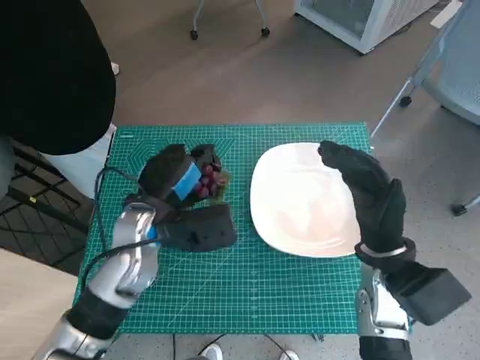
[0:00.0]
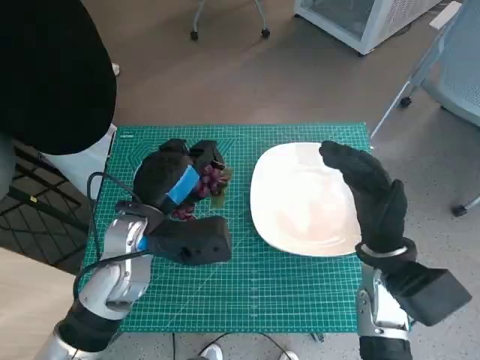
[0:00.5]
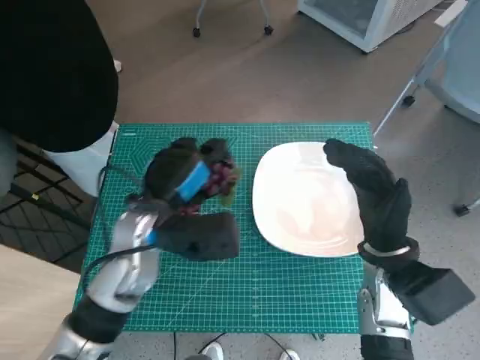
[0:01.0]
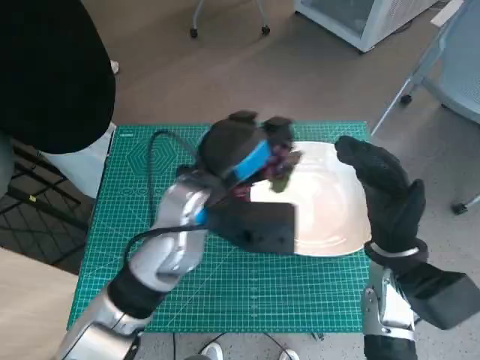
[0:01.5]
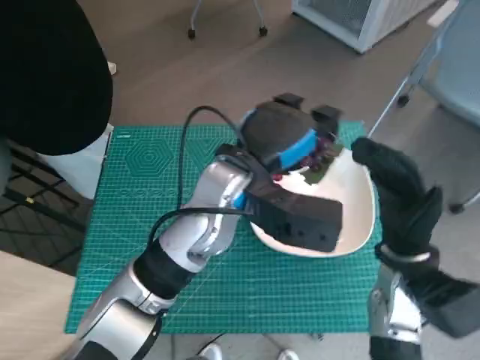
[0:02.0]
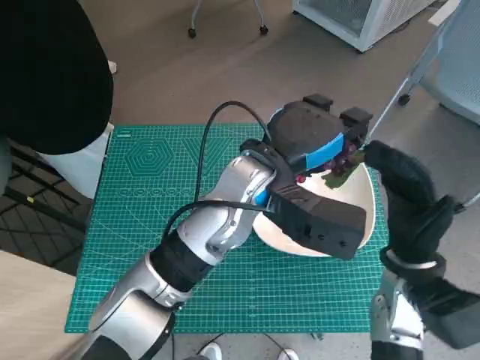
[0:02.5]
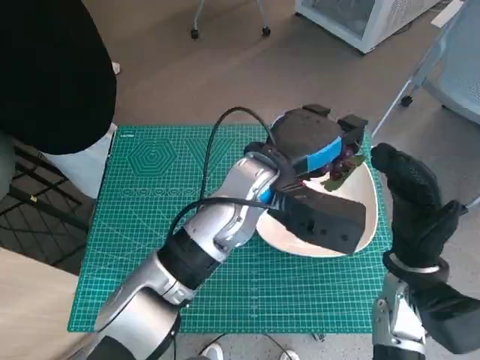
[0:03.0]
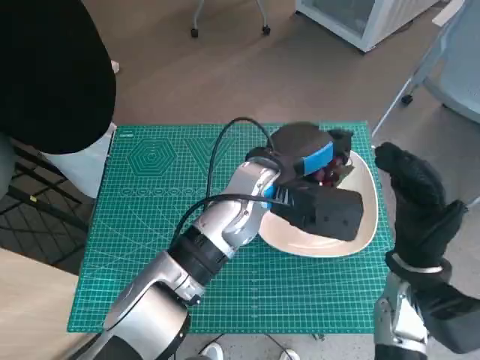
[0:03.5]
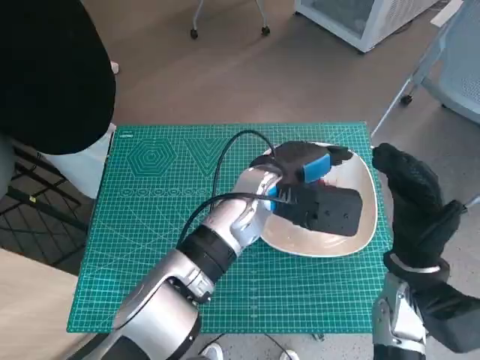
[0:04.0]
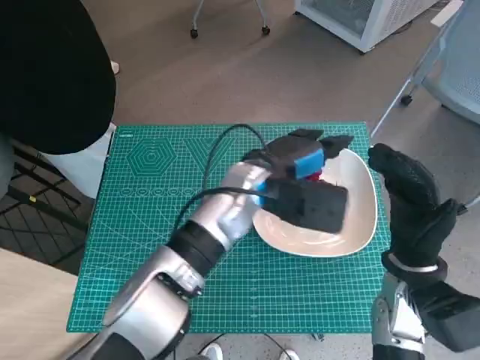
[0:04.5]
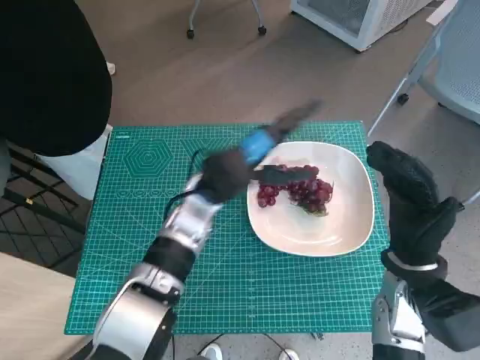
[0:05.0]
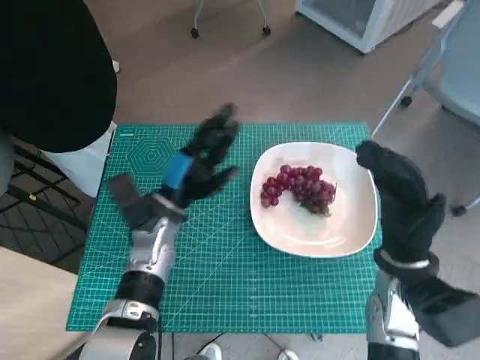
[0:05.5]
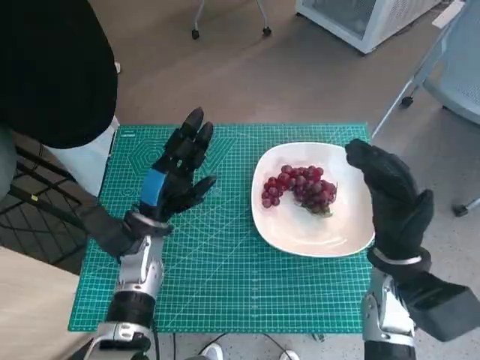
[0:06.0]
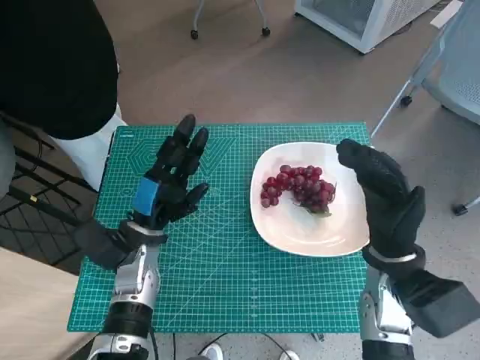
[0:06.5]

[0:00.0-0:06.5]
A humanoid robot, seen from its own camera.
Task of the whole recording: Pick up the grapes and put them on the plate.
Step, 0:00.0 to 0:04.0: Place the grapes in the plate with left hand.
0:00.0 to 0:02.0: The left hand goes roughly 15 cm to the right and upward.
0:02.0 to 0:04.5: The left hand moves roughly 5 cm.
0:04.5 to 0:06.5: The left hand travels to the left and downward by some 20 cm.

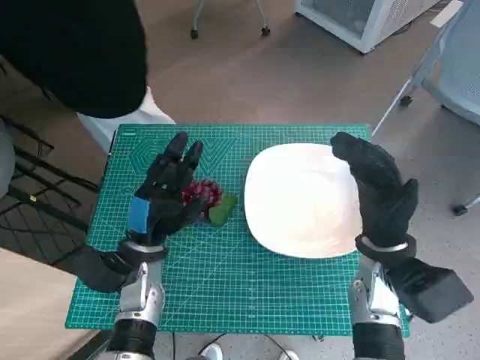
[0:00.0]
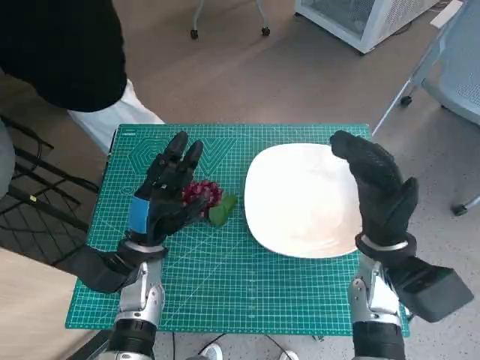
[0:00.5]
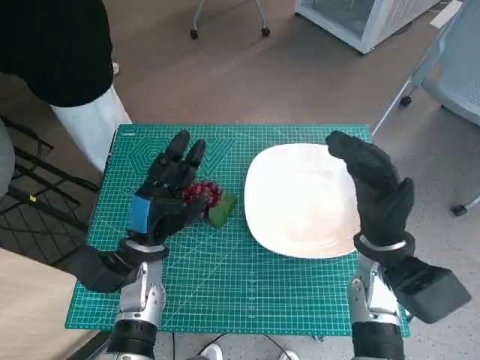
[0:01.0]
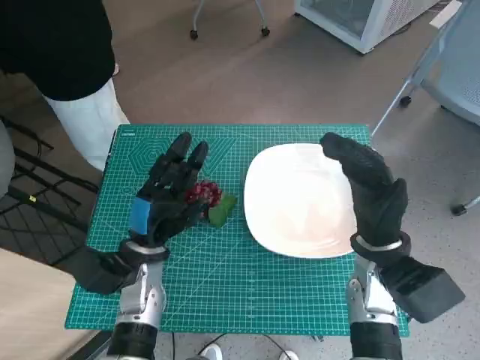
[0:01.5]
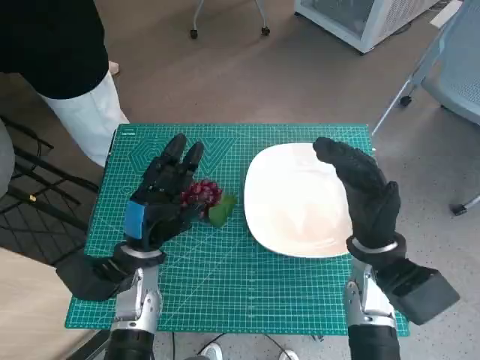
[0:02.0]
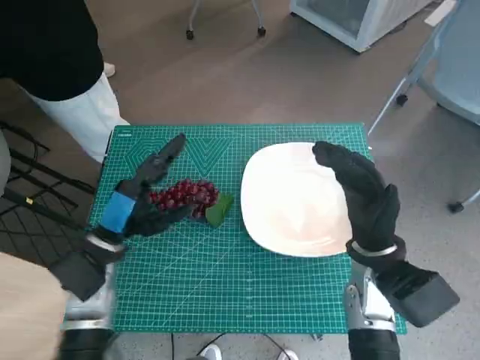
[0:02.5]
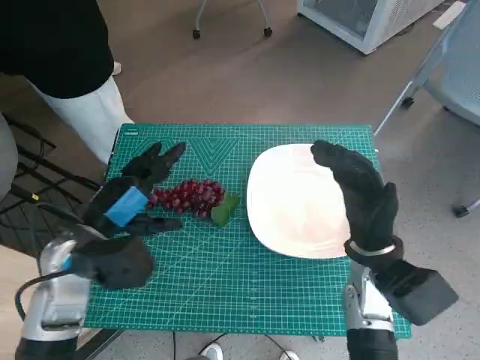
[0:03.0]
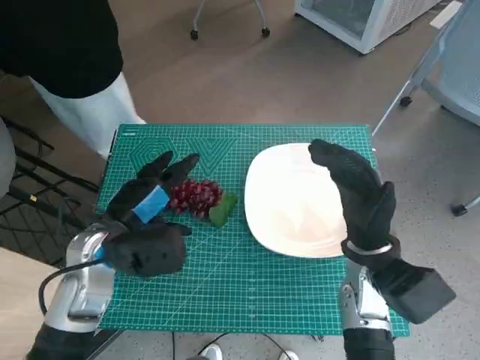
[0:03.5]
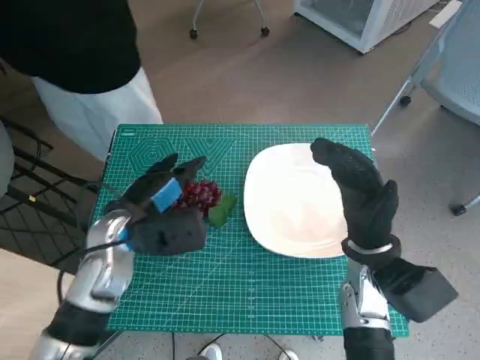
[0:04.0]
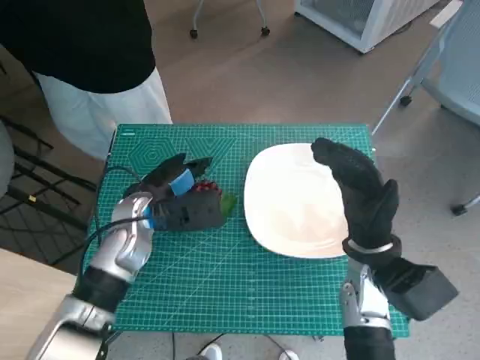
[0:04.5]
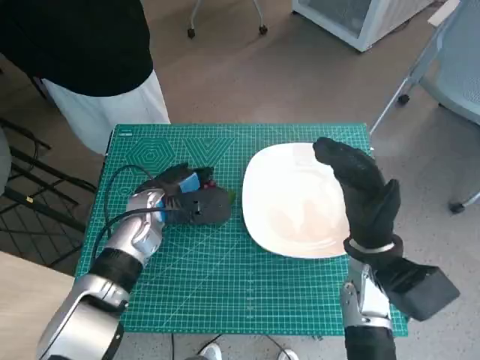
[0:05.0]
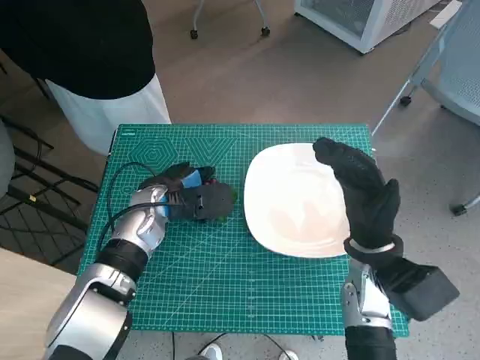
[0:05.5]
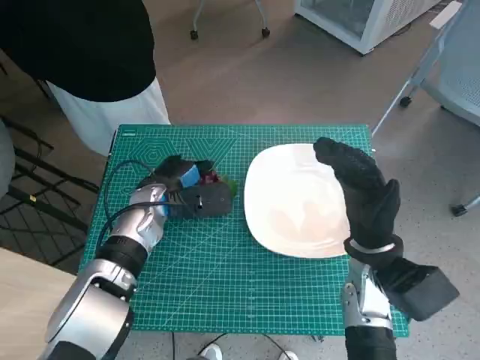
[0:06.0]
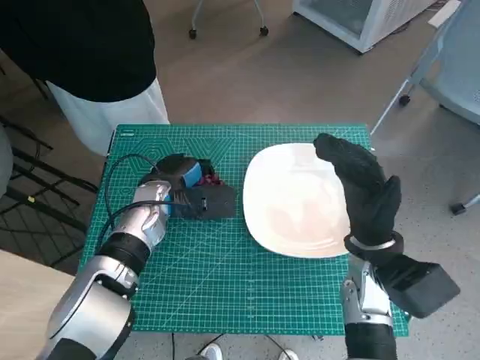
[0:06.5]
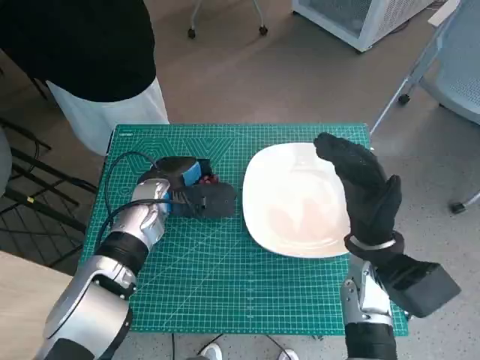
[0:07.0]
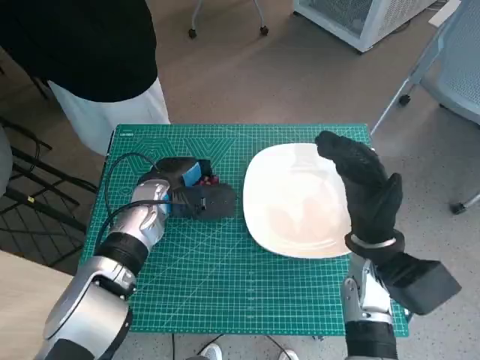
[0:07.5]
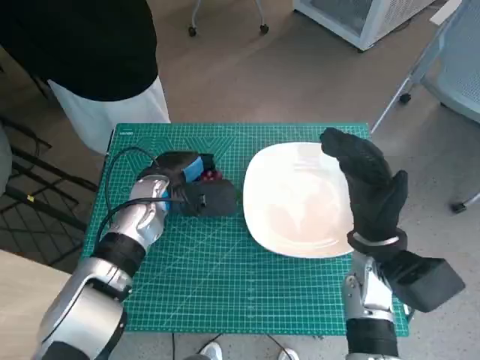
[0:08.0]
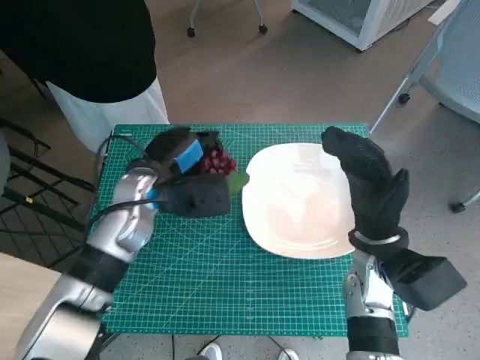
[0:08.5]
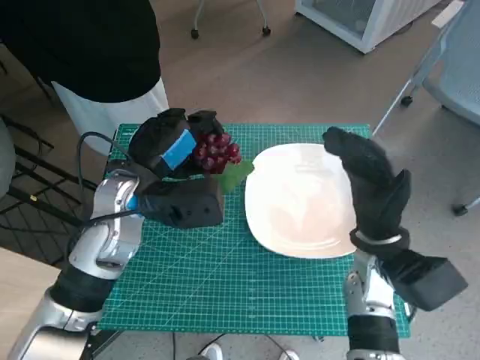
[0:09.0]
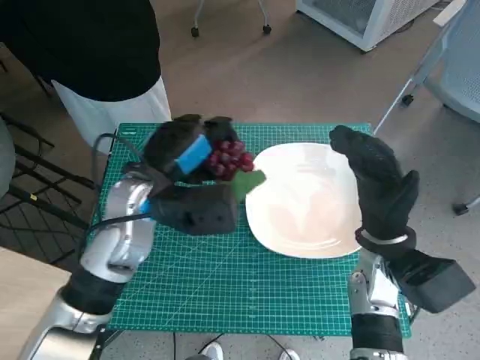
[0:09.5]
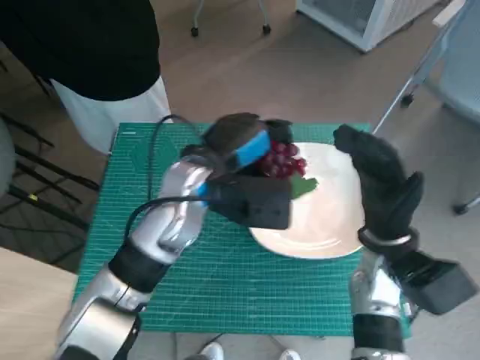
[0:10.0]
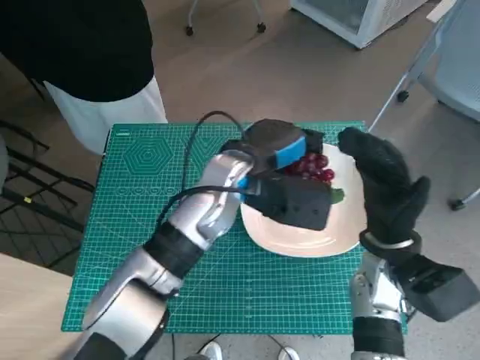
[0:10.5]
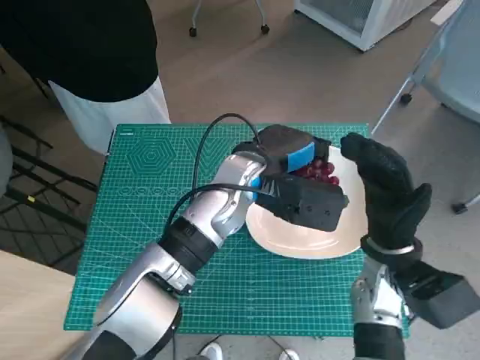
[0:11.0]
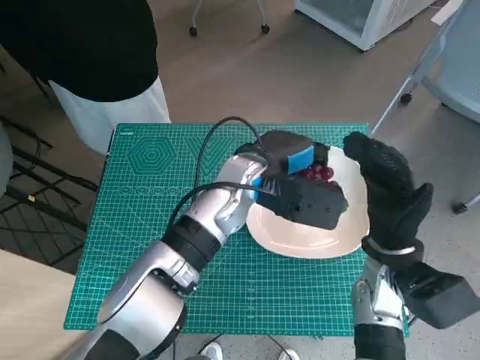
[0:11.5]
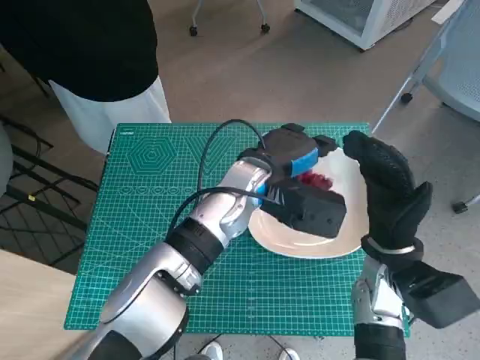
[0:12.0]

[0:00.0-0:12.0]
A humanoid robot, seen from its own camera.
Task of the whole recording: Pick up the grapes and put them on the plate.
Step, 0:00.0 to 0:05.0: Grasp the grapes with left hand.
0:02.0 to 0:04.0: The left hand goes some 5 cm upward.
0:04.0 to 0:06.0: The left hand moves forward, some 5 cm.
0:06.0 to 0:08.0: The hands move only a little.
0:08.0 to 0:10.0: The left hand shifts approximately 10 cm upward and to the right.
0:10.0 to 0:12.0: The left hand goes approximately 5 cm to the right.

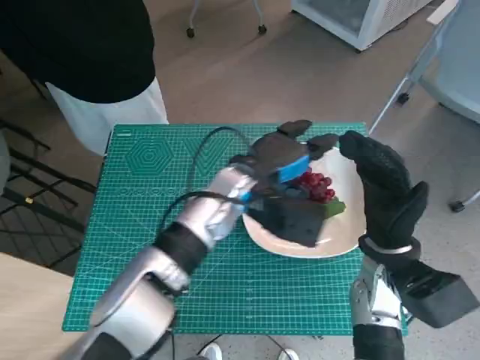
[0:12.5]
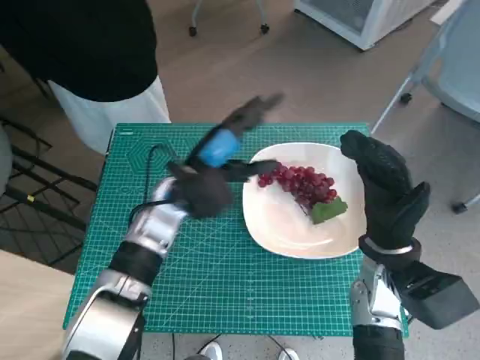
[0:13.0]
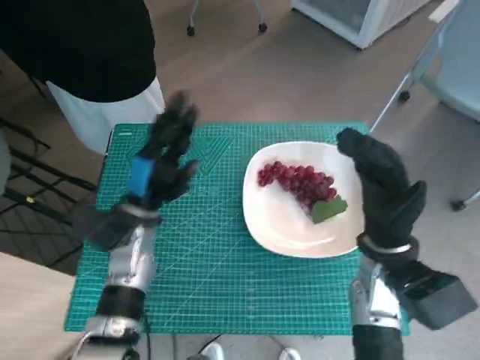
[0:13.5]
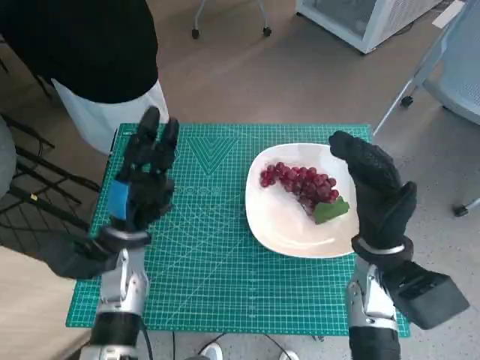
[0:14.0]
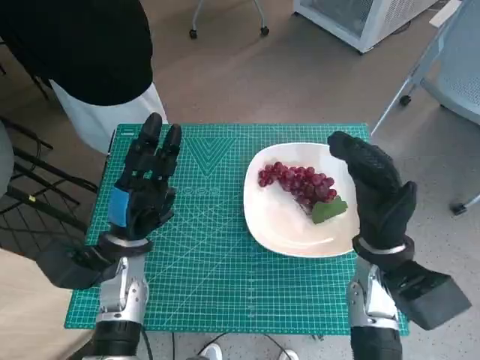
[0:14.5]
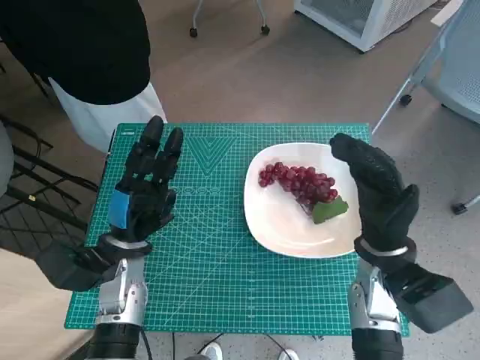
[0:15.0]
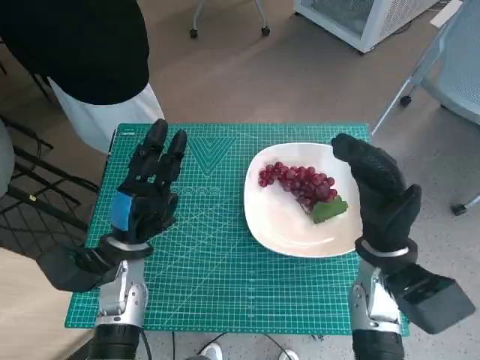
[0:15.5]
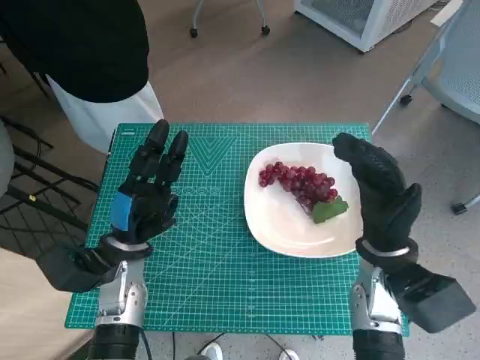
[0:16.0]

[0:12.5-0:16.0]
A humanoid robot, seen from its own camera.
Task of the whole recording: Pick up the grapes and put them on the plate.
0:12.5 to 0:14.5: The left hand heads to the left, backward and downward, covering approximately 20 cm.
0:14.5 to 0:16.0: Both hands stay about where they are.

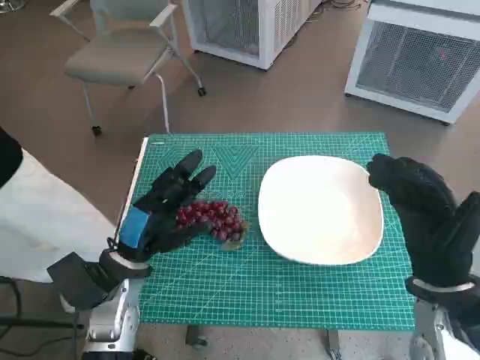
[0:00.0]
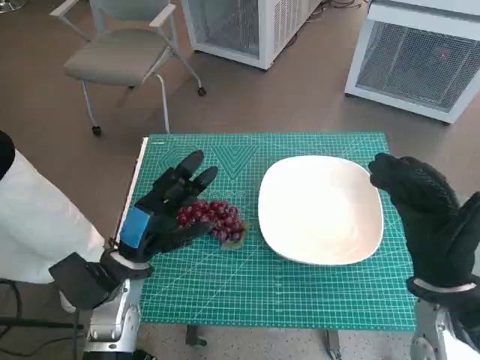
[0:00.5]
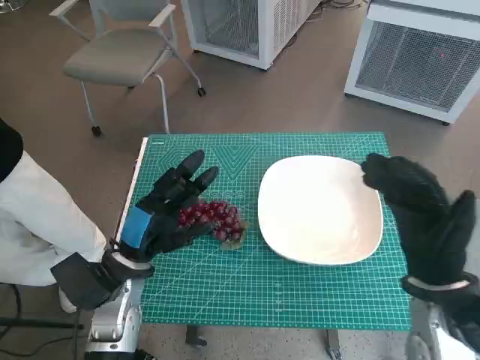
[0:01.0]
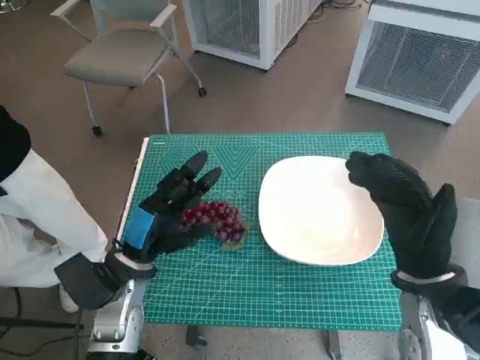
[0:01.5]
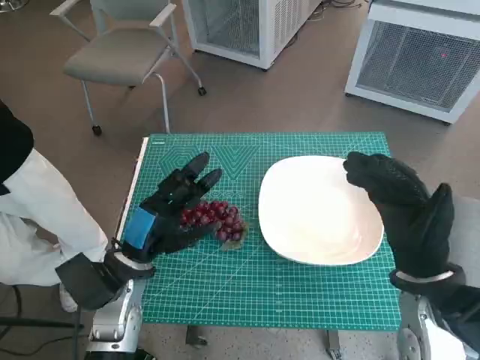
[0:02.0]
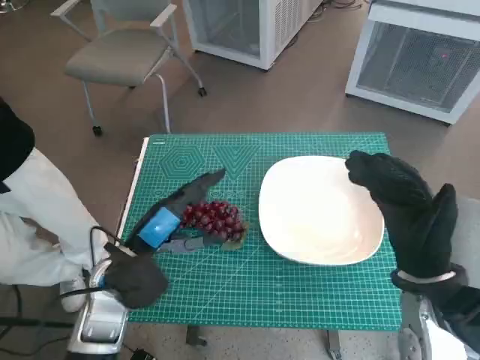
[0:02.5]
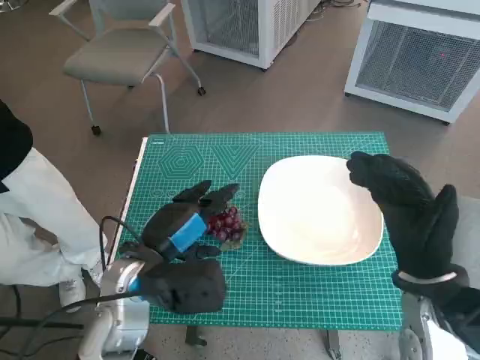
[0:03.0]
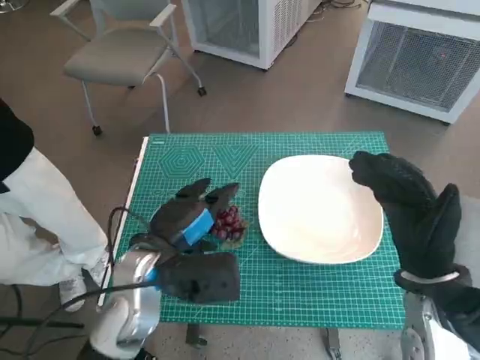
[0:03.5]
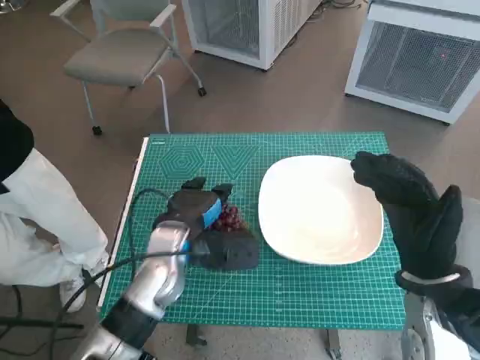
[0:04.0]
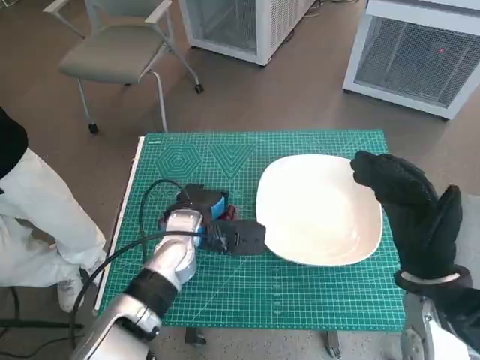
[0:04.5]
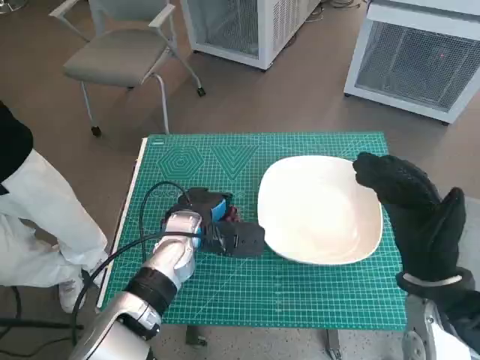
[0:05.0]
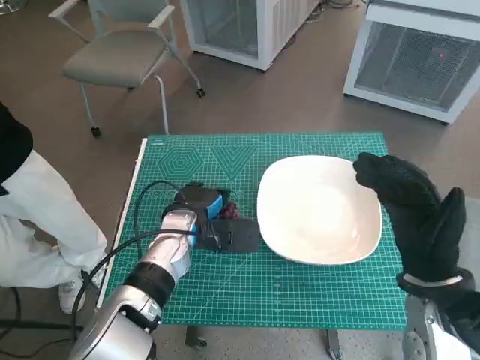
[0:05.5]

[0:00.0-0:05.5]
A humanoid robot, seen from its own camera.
Task of the whole recording: Pick up the grapes and put them on the plate.
0:02.0 to 0:03.5: The left hand changes place by about 5 cm.
0:03.5 to 0:05.5: The left hand travels forward and downward by approximately 10 cm.
